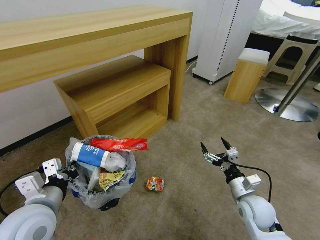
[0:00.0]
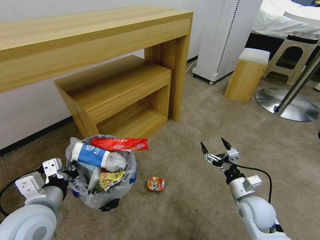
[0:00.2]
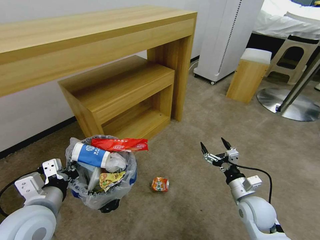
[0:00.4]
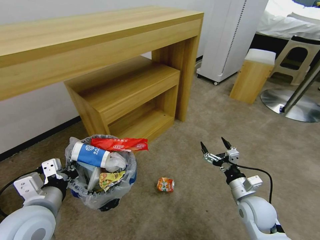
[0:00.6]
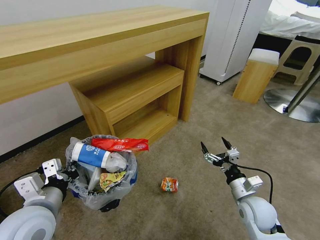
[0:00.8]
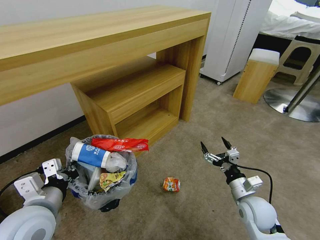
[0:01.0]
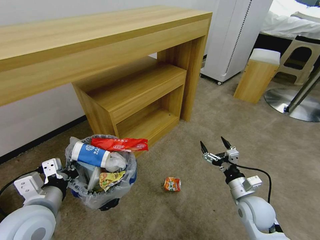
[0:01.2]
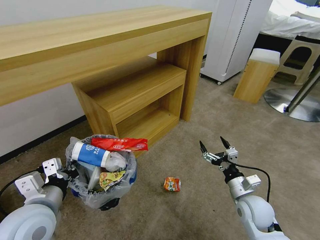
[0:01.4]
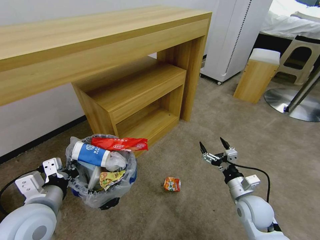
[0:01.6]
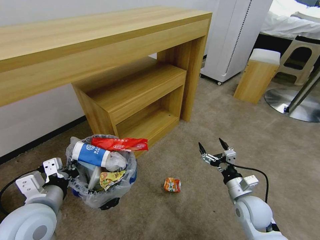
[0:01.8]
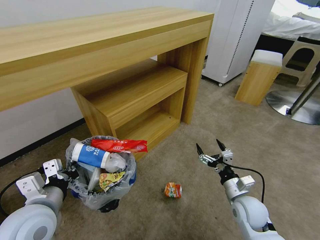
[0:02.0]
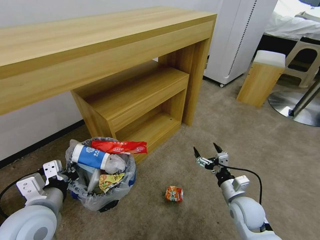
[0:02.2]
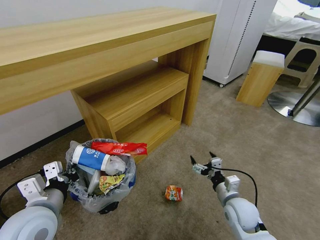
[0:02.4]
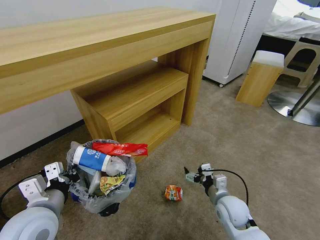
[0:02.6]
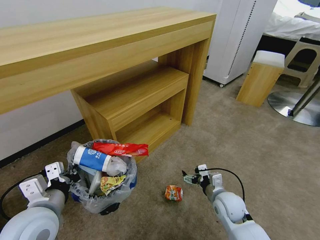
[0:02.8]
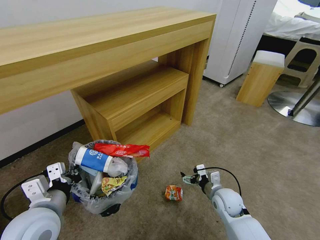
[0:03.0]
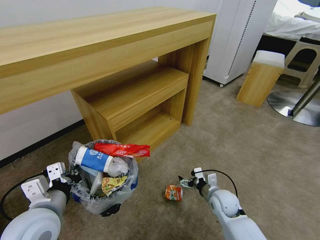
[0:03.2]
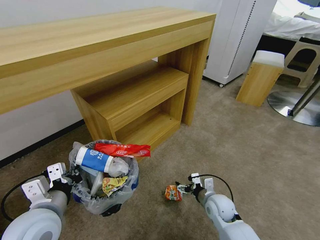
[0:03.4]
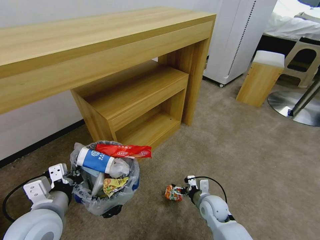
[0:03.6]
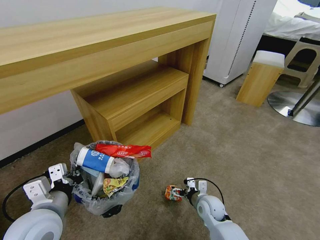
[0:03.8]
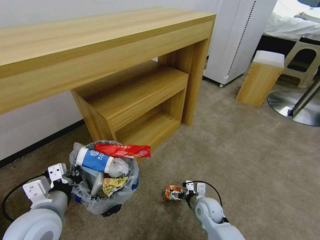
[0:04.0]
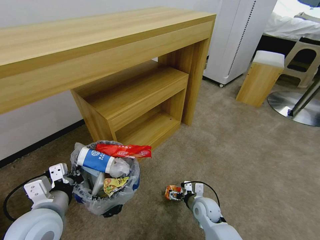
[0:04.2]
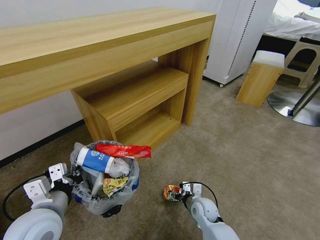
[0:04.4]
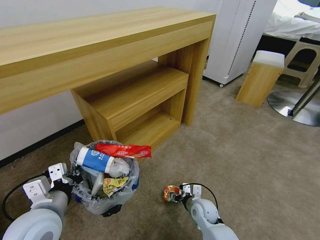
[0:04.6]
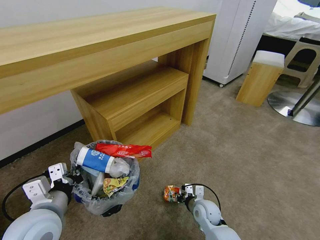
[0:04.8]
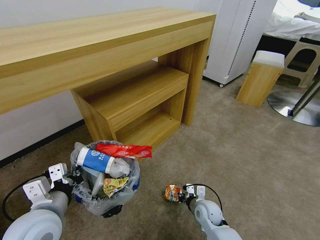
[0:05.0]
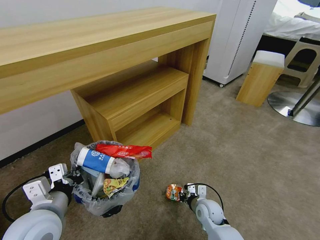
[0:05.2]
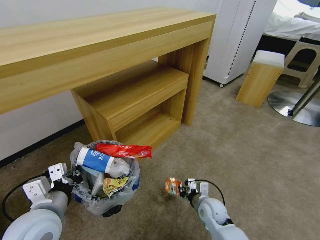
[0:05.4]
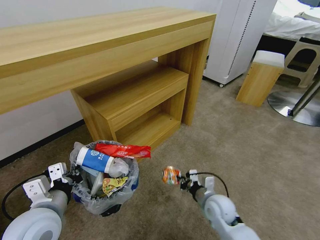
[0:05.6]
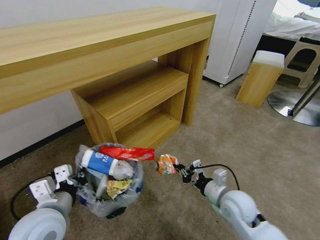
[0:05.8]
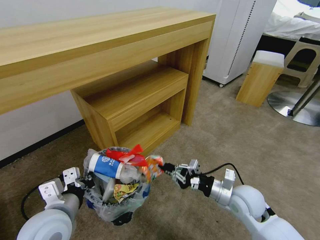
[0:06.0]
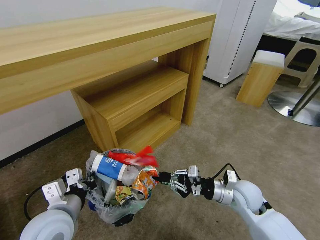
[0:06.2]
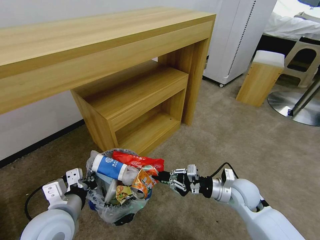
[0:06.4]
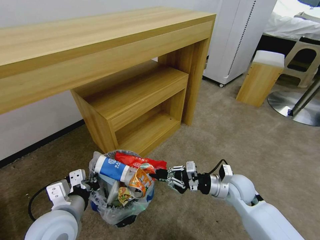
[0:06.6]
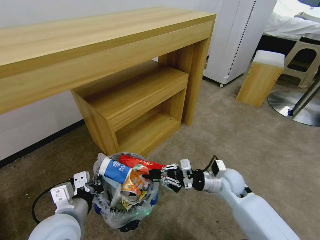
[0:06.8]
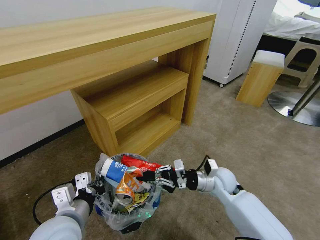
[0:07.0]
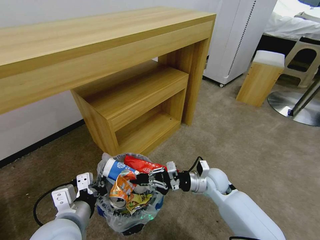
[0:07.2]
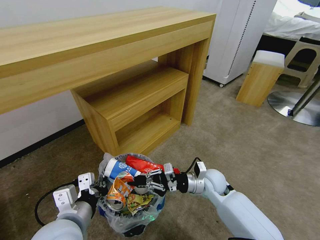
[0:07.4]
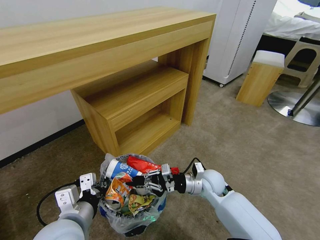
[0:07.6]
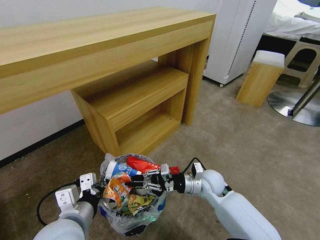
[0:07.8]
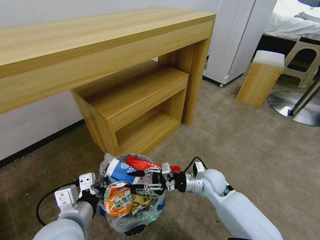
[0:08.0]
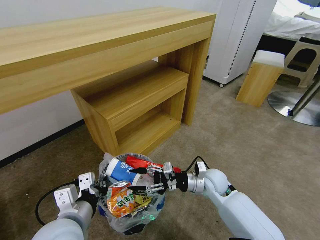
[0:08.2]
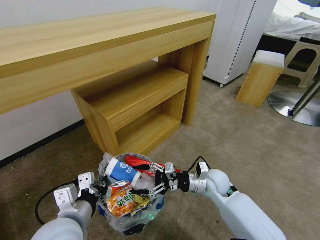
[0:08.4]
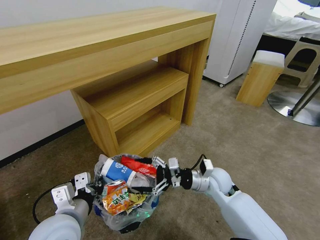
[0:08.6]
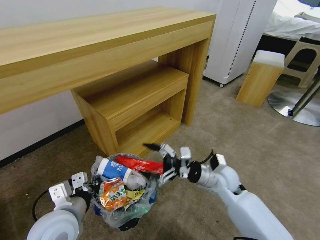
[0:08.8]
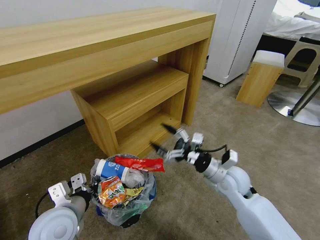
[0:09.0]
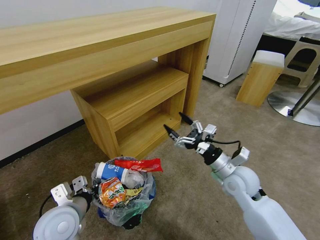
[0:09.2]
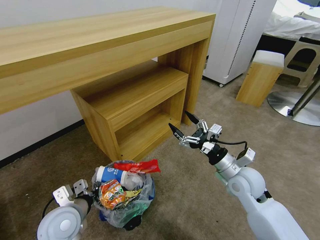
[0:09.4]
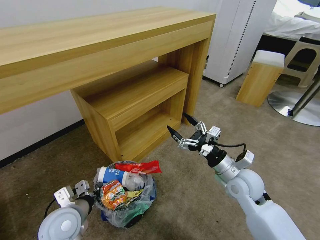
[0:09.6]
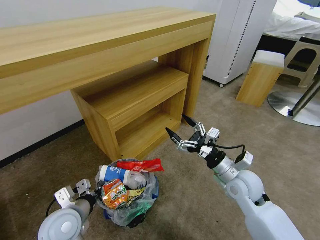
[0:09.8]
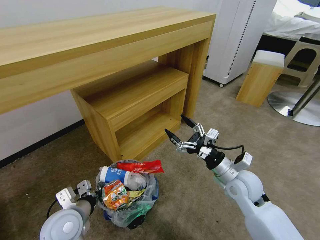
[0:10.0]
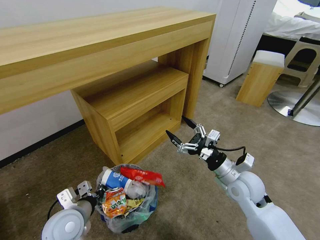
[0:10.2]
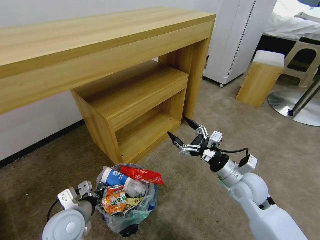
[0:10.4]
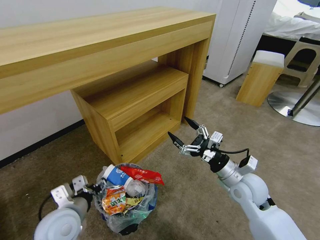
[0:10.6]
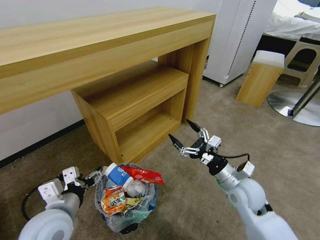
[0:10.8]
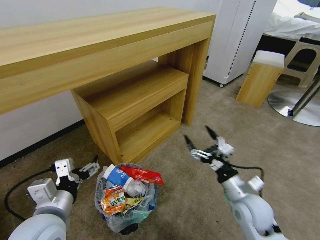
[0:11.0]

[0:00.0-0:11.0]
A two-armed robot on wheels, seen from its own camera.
Task of the whole recording: Pick up the trash bin and place the garbage on the floor into it.
0:01.6 to 0:03.2: The right gripper moves downward and to the left, about 10 cm.
0:03.2 to 0:04.8: The right gripper travels to the left by about 5 cm, and closes its fingers.
0:04.8 to 0:06.2: The right gripper moves upward and to the right, approximately 20 cm.
0:06.2 to 0:07.8: The right gripper is displaced to the left and forward by some 10 cm.
0:07.8 to 0:09.4: The right gripper moves upward and to the right, approximately 10 cm, and opens its fingers; the left gripper goes roughly 10 cm downward, to the left and forward.
0:09.4 to 0:11.0: The left gripper shifts approximately 10 cm upward, and opens. The right gripper is displaced backward by approximately 5 cm.

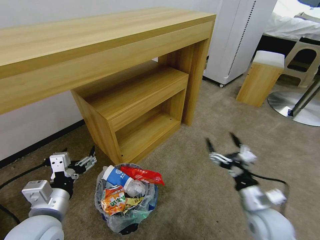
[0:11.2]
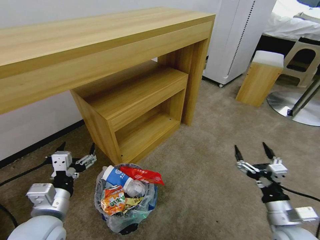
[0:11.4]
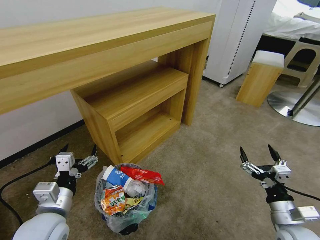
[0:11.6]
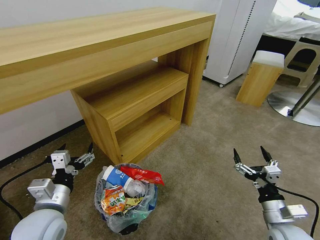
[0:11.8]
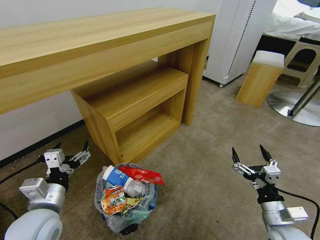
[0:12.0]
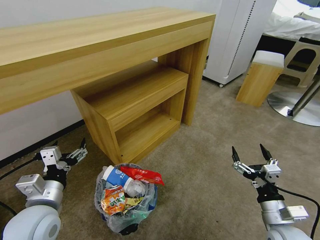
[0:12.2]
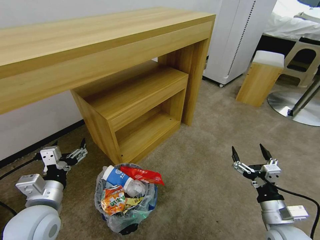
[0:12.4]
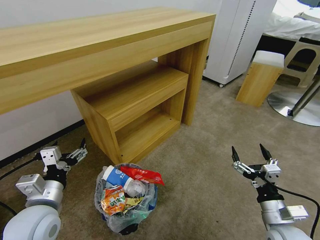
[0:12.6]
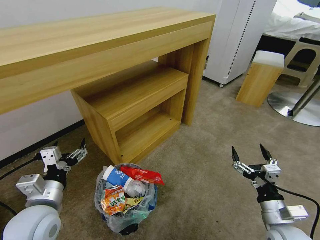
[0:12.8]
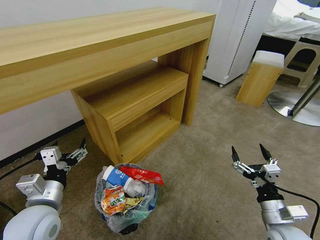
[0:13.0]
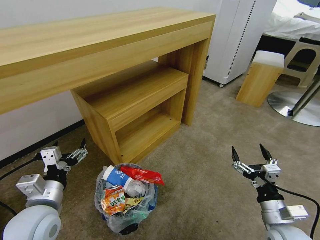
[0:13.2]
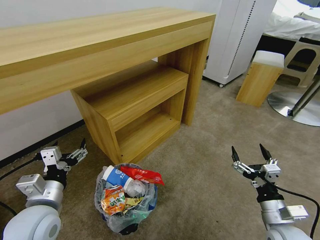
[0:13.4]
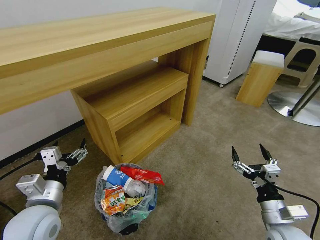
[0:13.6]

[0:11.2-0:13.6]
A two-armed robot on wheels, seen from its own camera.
Task of the whole recording: Pick up the trash bin and place the garbage on the floor into it.
0:11.2 to 0:12.4: The right gripper changes place by approximately 5 cm.
0:12.4 to 0:13.6: Neither gripper changes place.
